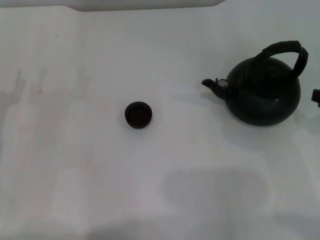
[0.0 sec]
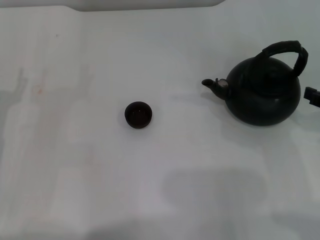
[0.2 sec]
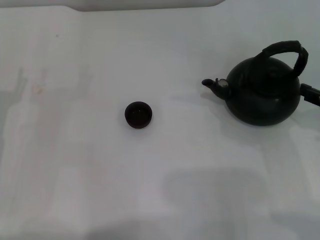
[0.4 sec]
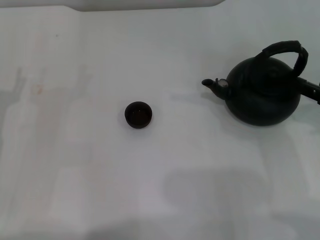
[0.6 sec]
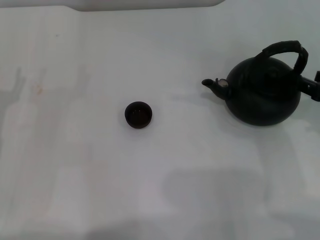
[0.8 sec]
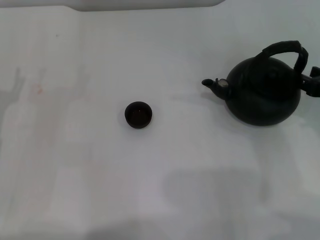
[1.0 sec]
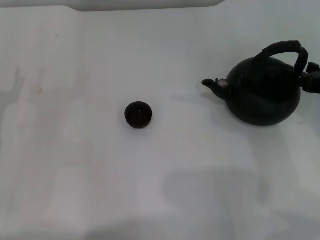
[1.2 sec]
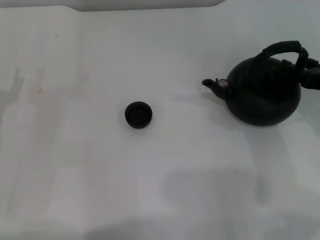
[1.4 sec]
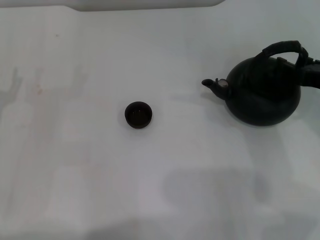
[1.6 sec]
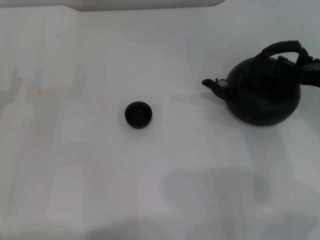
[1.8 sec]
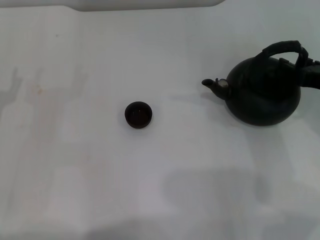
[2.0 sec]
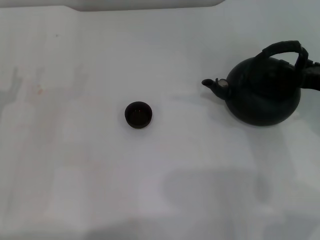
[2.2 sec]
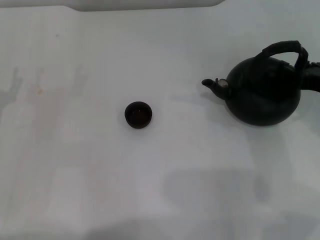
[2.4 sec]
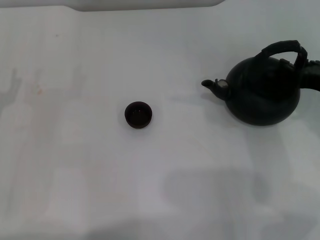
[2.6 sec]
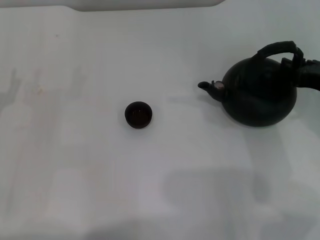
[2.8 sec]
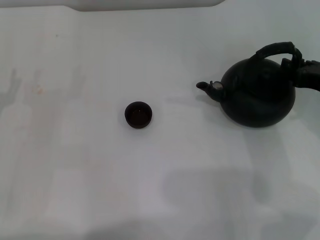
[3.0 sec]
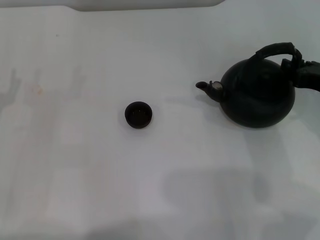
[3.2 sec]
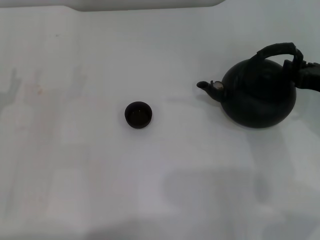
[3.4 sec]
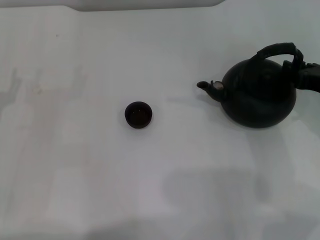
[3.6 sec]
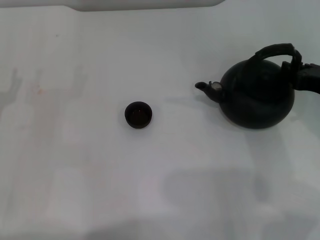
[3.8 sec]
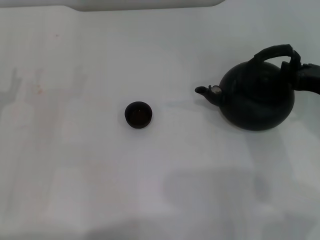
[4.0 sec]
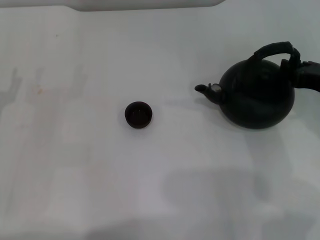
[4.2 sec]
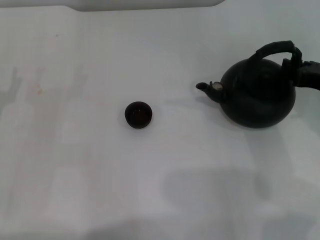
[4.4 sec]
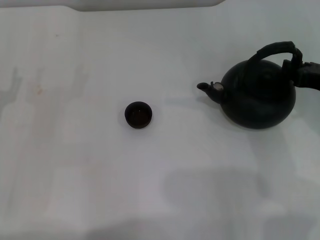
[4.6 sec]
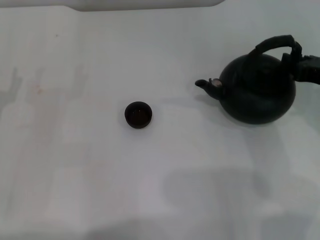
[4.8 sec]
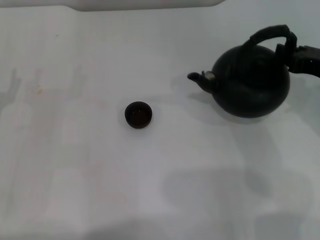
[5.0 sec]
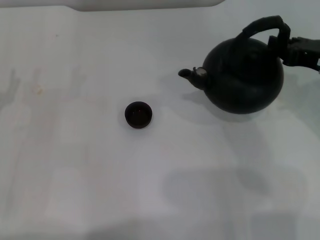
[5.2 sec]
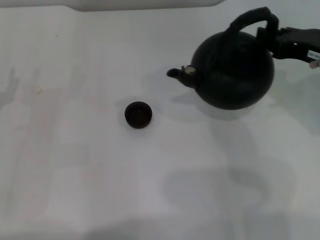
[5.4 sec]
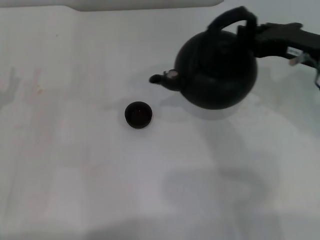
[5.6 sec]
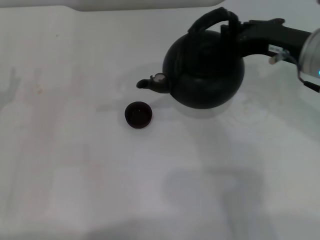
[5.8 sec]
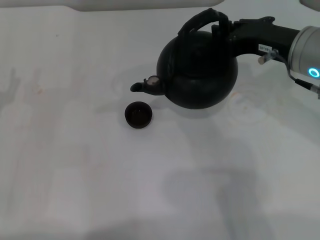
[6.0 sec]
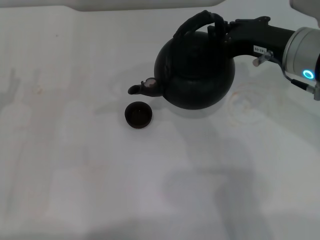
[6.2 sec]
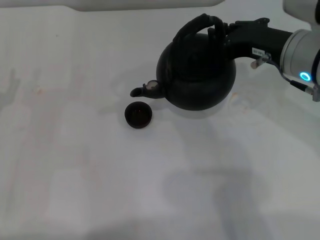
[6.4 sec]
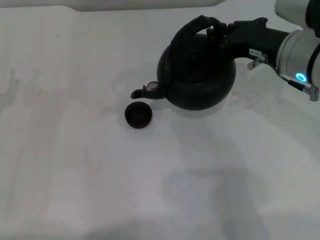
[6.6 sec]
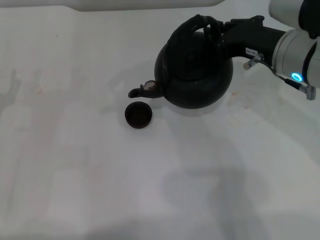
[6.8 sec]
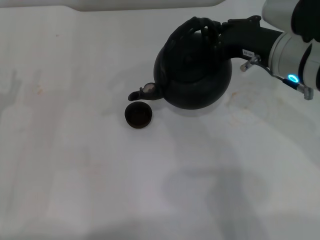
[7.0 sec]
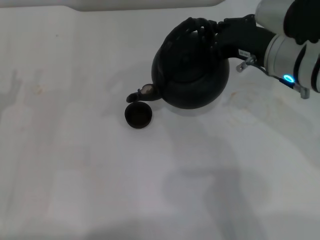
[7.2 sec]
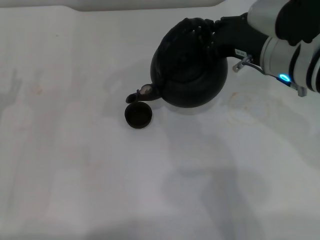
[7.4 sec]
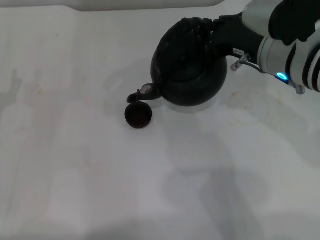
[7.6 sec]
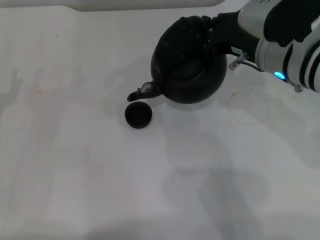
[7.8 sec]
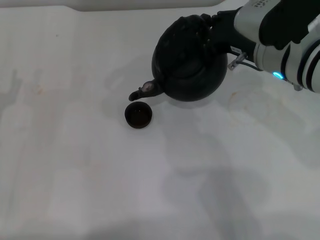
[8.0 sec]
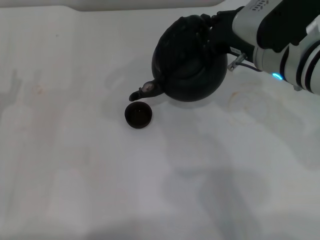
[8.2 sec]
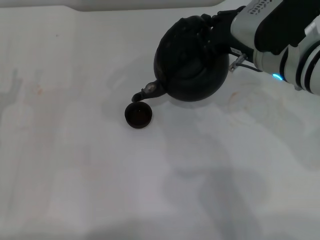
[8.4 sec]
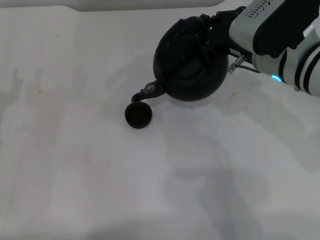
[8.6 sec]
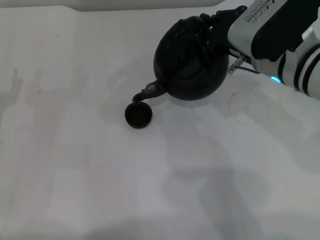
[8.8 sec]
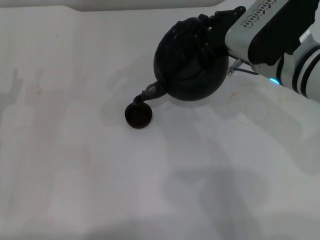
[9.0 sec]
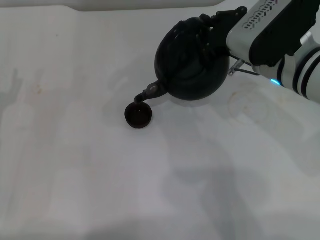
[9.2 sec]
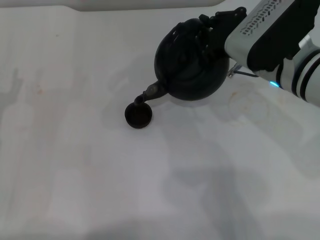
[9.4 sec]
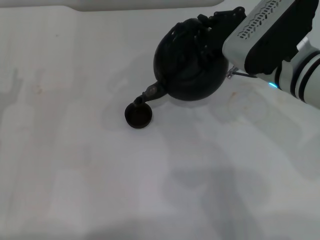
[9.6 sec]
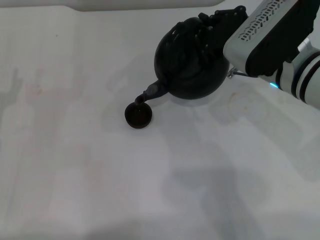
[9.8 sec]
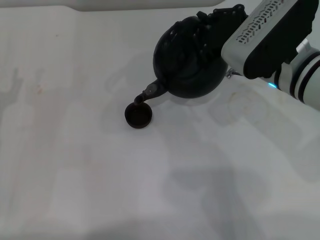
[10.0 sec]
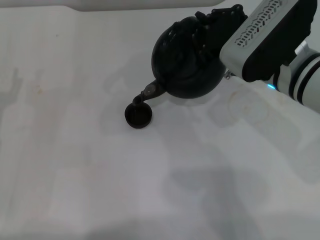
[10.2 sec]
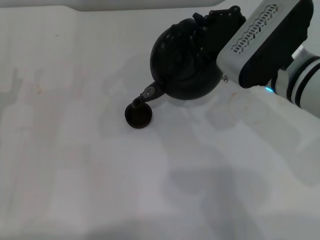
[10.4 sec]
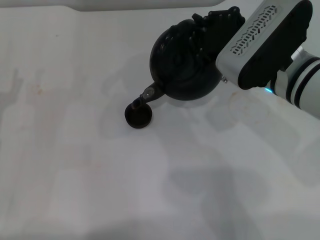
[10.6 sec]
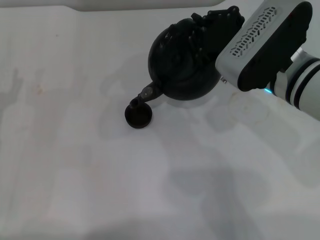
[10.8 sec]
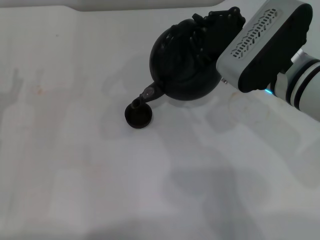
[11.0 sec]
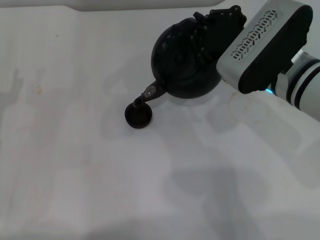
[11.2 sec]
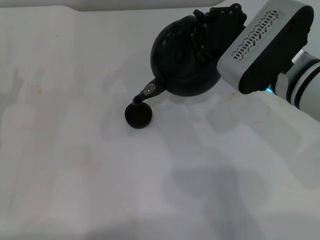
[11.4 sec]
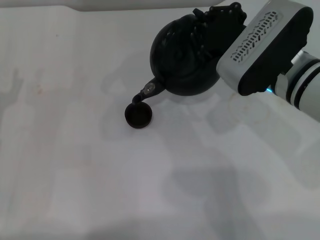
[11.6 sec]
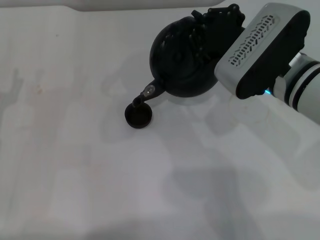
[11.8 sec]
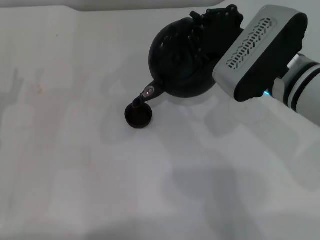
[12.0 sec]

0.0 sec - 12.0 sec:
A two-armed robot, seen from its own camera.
Task of the whole recording: Grasp the handle of the teapot with one hand and pour tea into the teacup.
Step, 0.0 sec - 5.4 sec: Pick up the teapot with the right gripper.
0.0 sec - 1.6 sec: The right gripper heads forward, covering roughly 5 cm.
1.6 sec - 3.0 sec: The right gripper closes its fingers.
3.0 sec - 4.4 sec: Both grippers stay put.
4.4 sec - 6.0 sec: The right gripper travels to the left and upward by some 10 cm.
6.0 sec - 7.6 sec: The grippers move only a little.
7.6 sec - 10.4 sec: The grippers make only small movements.
10.4 sec - 12.0 sec: There are only small adjustments of the grippers.

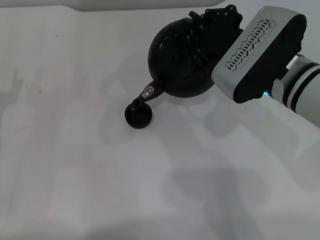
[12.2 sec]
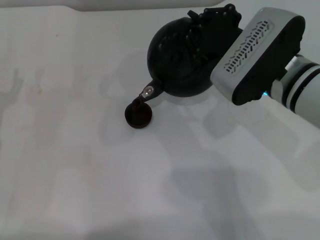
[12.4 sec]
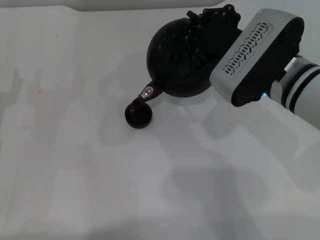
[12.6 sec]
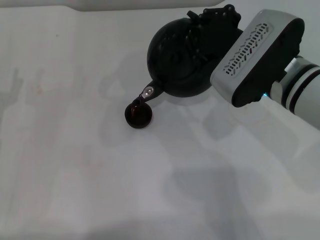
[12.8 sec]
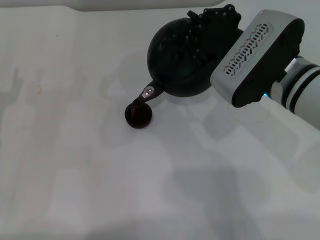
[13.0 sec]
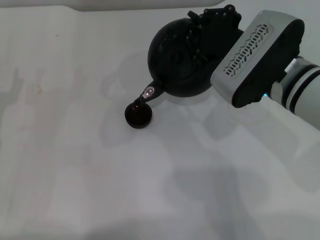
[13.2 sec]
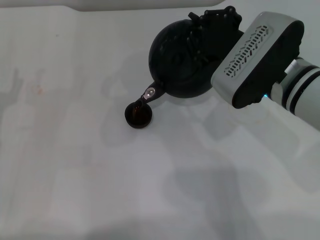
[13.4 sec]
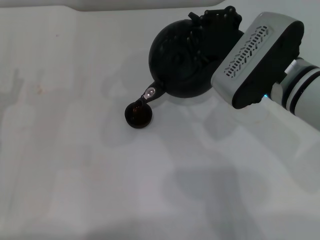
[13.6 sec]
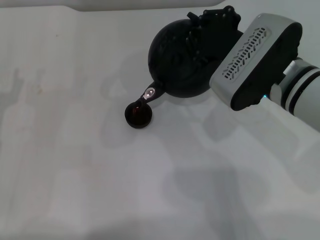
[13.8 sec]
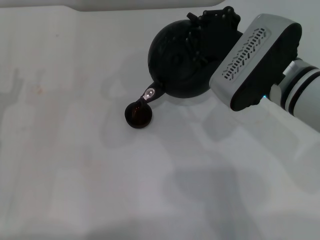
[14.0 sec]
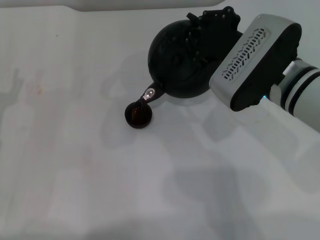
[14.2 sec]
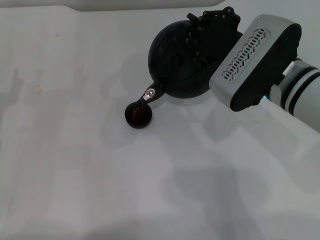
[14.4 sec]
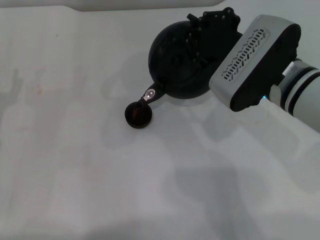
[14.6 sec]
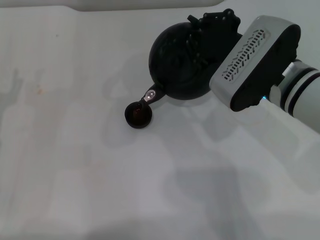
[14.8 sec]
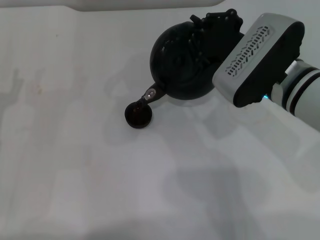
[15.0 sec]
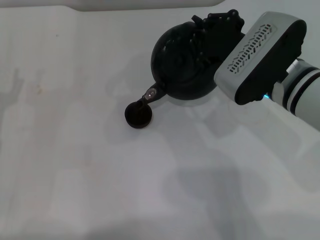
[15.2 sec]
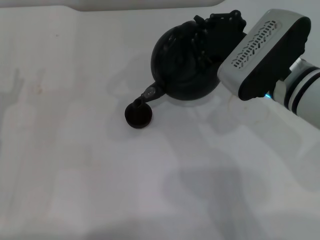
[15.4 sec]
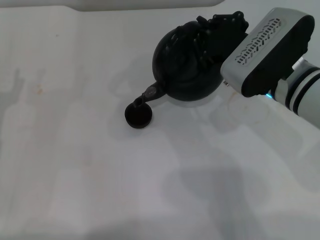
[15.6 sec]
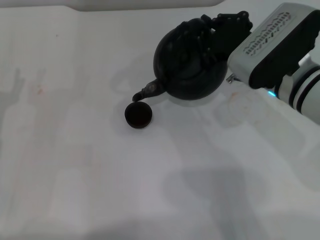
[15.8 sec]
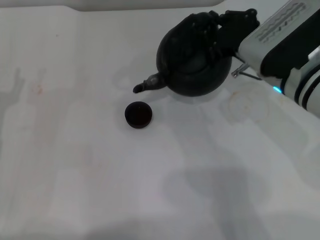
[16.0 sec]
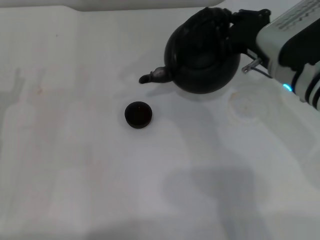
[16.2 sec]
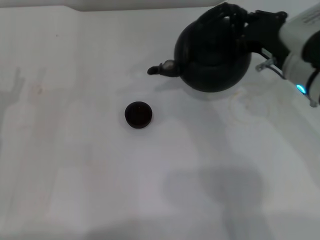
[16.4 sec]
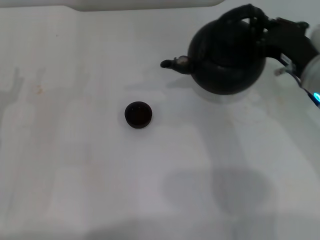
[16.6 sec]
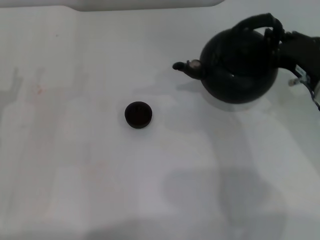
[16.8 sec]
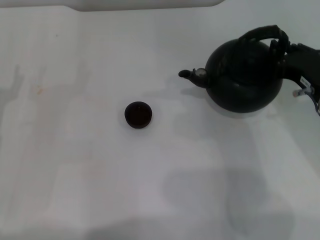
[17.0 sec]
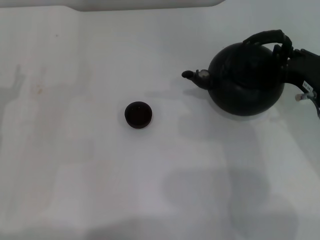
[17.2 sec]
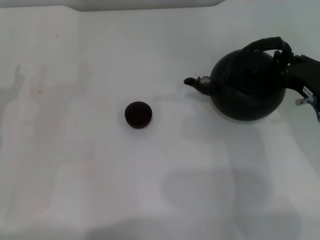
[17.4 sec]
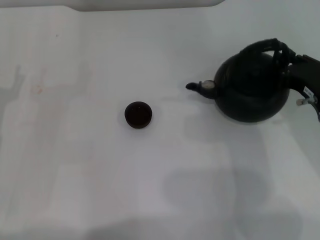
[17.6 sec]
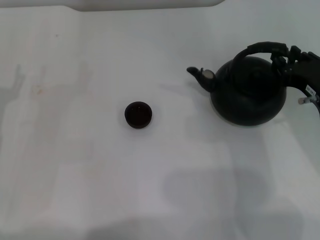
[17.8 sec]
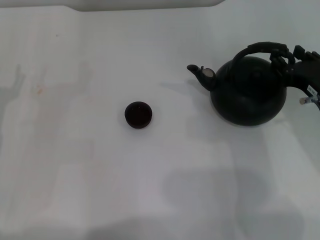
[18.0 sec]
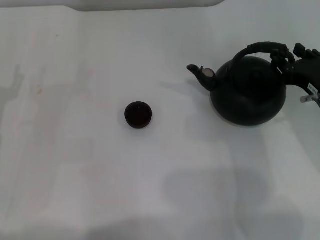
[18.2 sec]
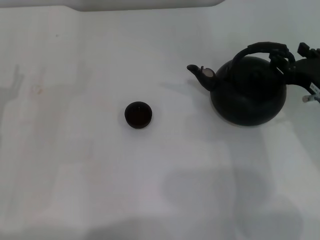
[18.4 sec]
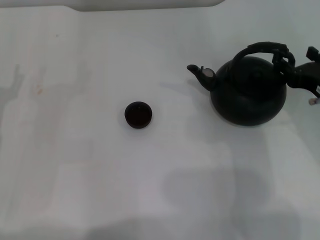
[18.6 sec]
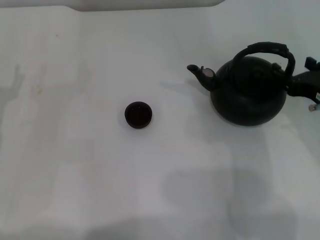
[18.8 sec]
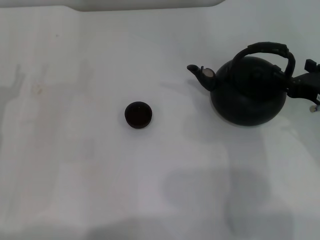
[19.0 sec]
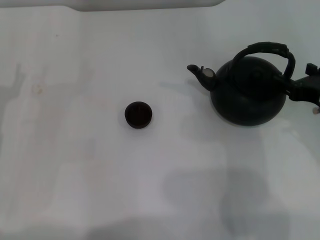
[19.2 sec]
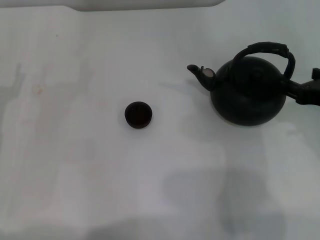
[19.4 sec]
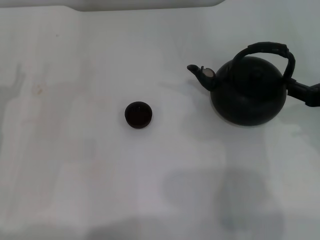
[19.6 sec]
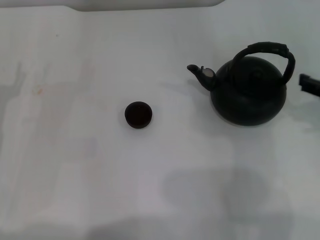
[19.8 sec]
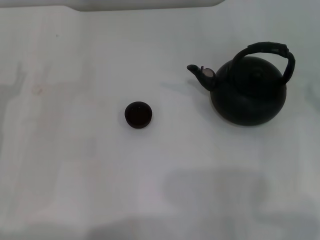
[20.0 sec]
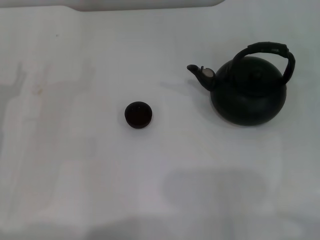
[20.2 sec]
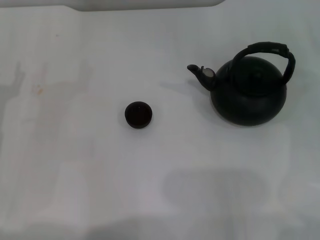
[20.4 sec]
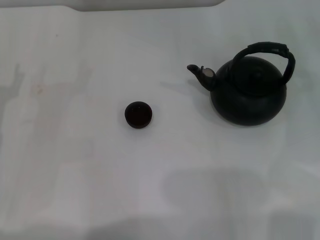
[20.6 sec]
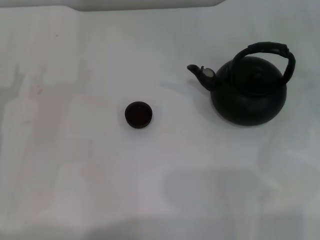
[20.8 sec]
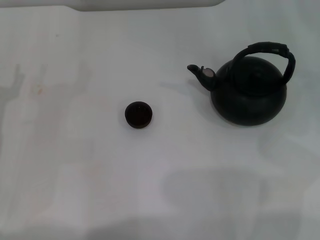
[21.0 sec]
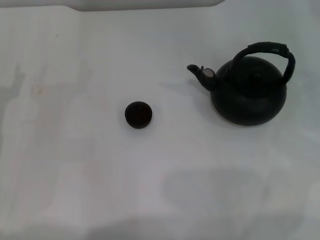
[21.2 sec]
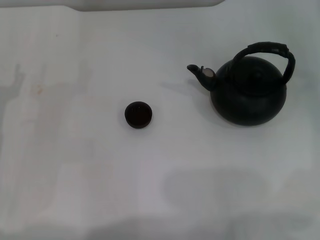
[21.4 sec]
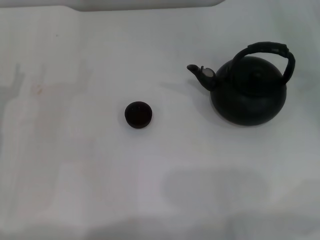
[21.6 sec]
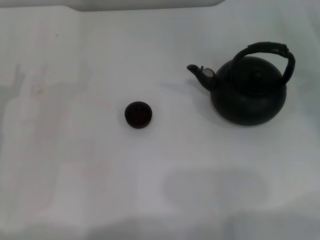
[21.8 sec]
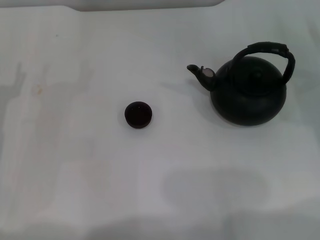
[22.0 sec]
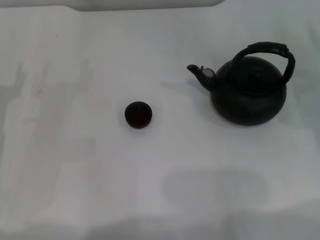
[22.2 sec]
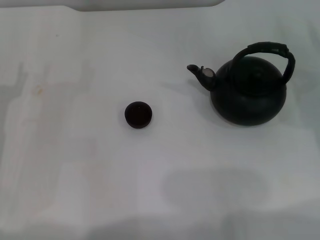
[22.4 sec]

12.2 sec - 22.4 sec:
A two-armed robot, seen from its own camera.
Task of the whole recording: Grasp the handle of the teapot with one hand and pour tea into the teacup.
Step, 12.2 sec - 15.6 sec: Pour tea into the teacup with the right gripper.
Step, 15.8 sec - 19.4 sec: Put down the teapot with the right gripper.
12.2 sec - 15.2 sec: The two grippers keep their place.
15.2 sec - 16.6 sec: The right gripper heads to the right, covering about 5 cm.
16.6 sec - 18.0 sec: The right gripper changes place by about 5 cm, and opens.
18.0 sec - 19.4 sec: The right gripper opens up.
19.4 sec - 21.0 sec: The right gripper moves forward and to the right, approximately 15 cm.
